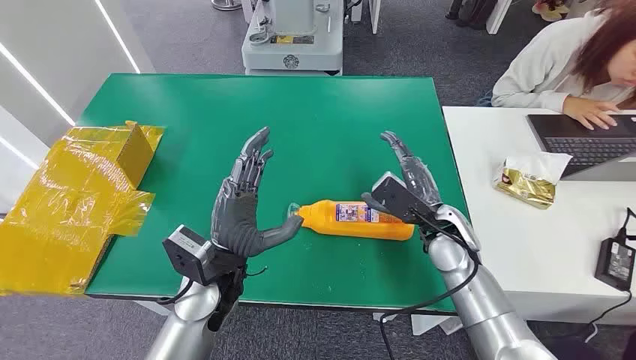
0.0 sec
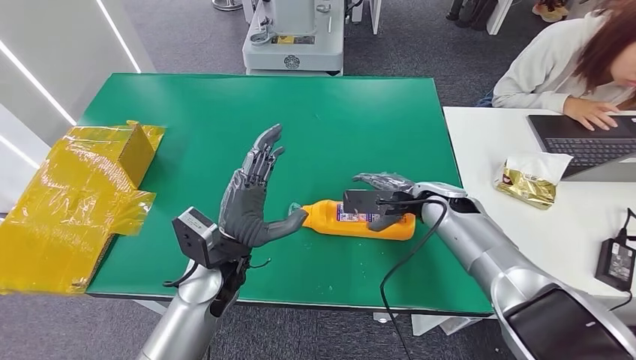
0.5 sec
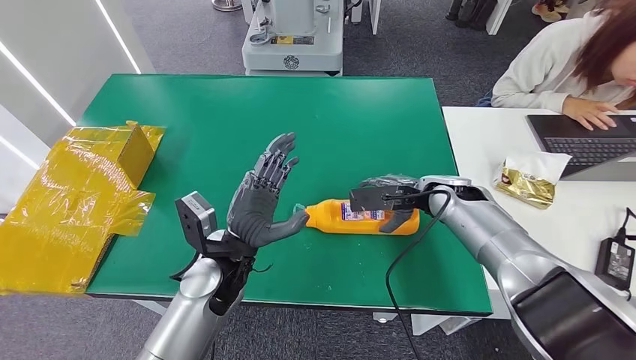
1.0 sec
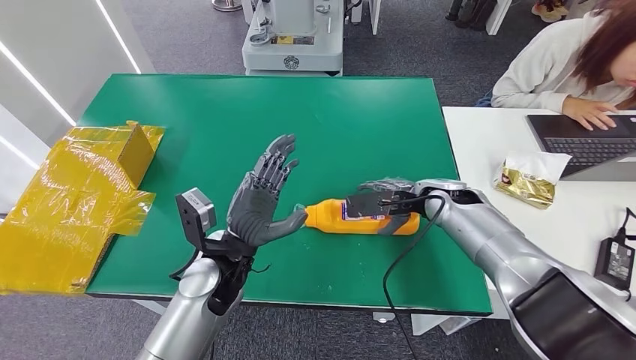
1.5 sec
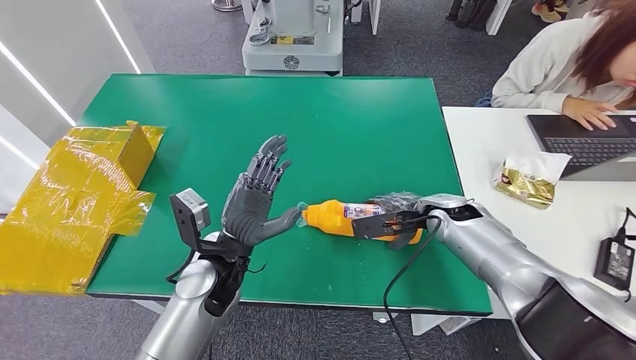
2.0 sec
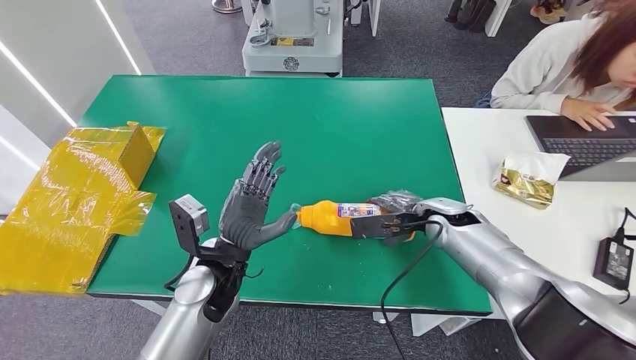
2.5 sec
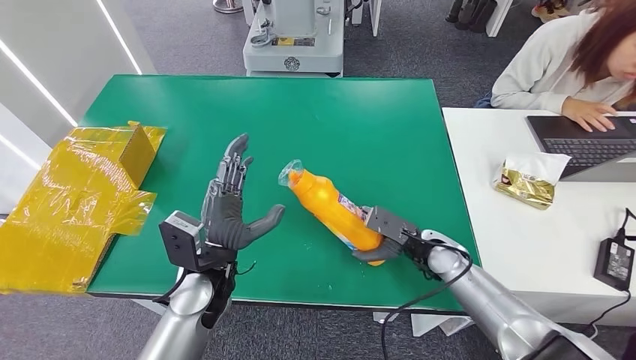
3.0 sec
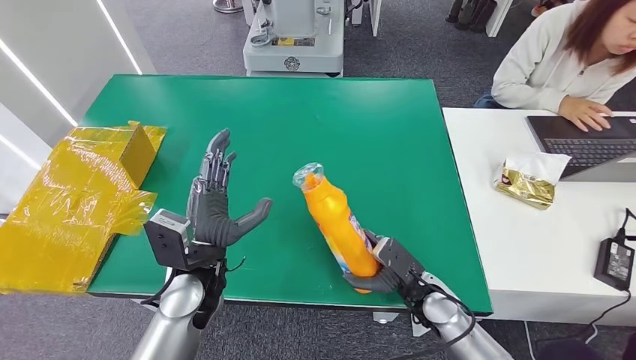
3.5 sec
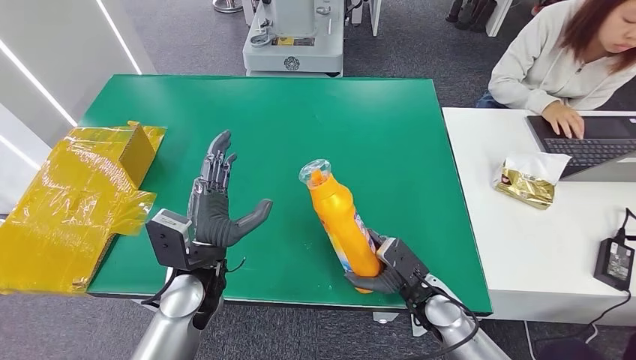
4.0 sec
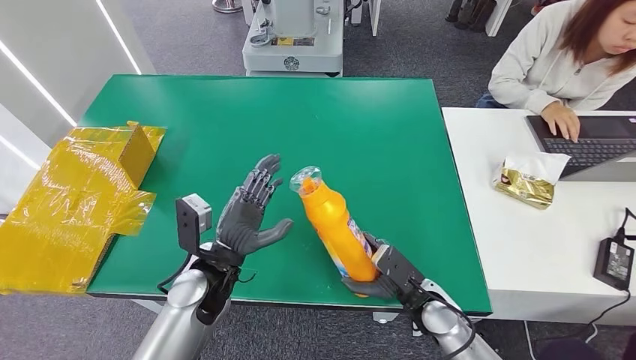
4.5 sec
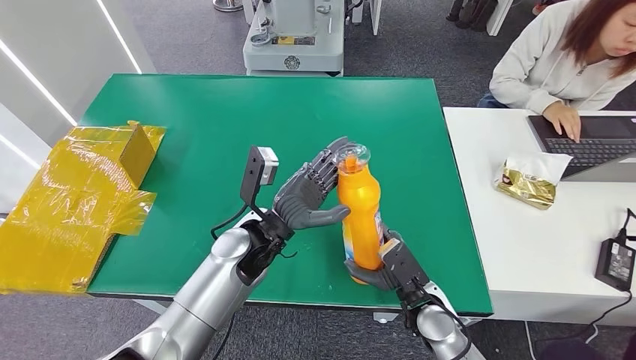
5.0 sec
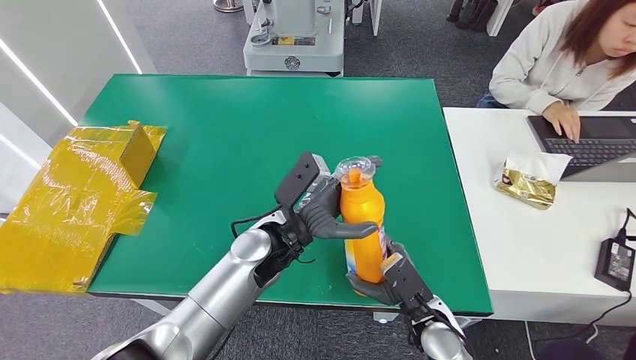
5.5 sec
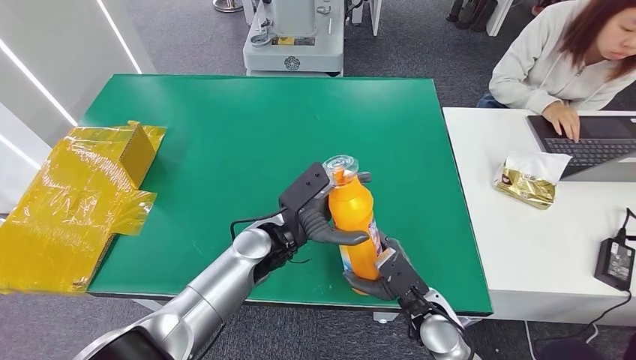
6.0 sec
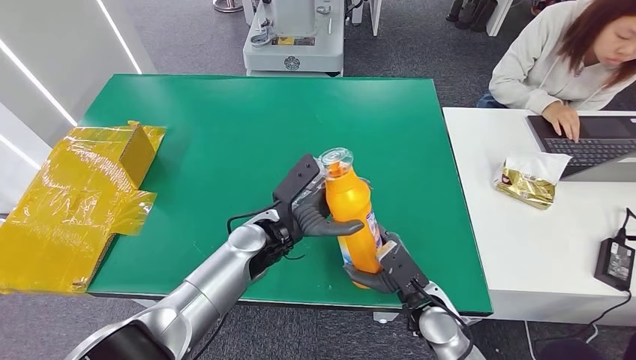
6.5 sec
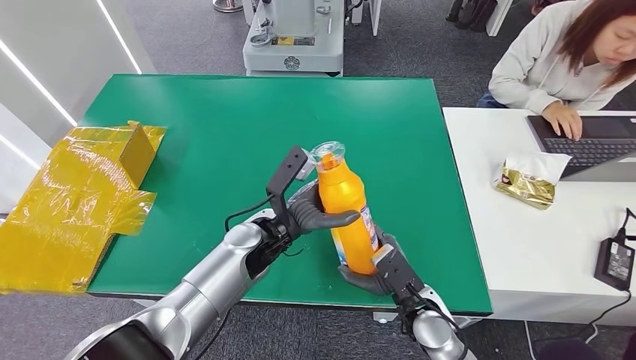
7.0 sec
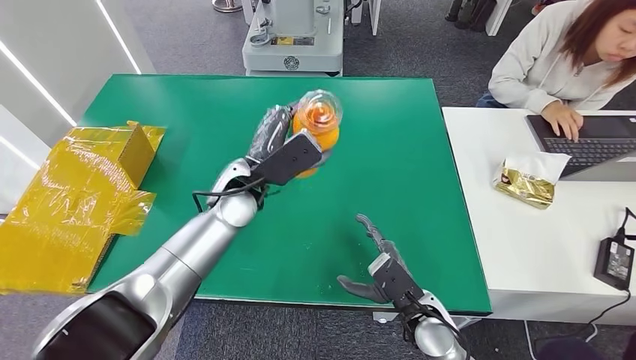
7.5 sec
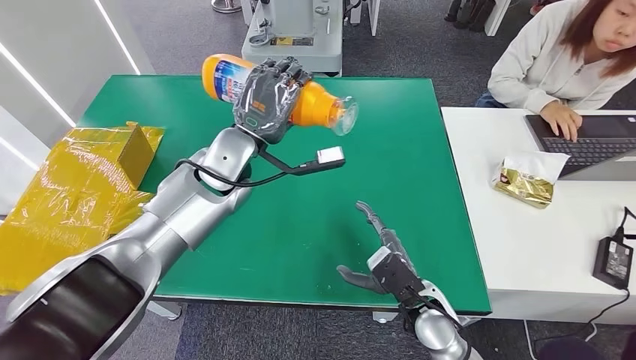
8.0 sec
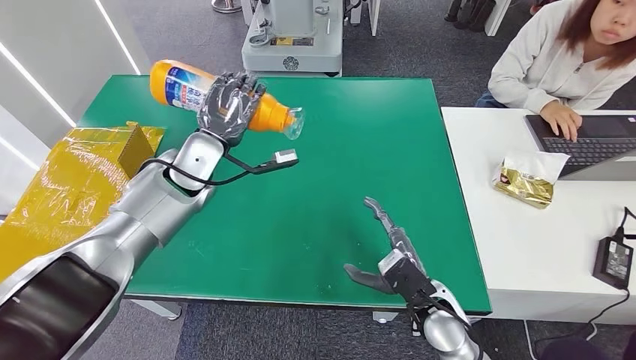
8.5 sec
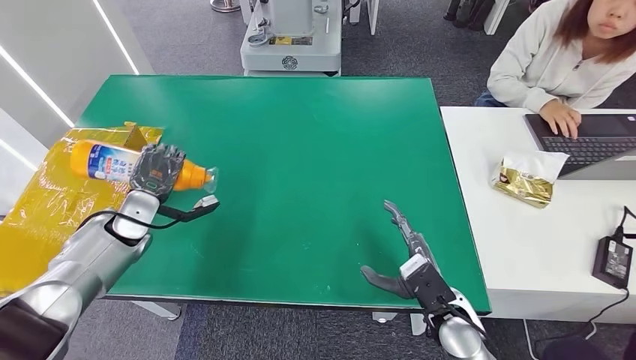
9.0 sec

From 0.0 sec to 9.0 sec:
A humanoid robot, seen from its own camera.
Step, from 0.0 sec to 3.0 sec: Pick up the bottle from the table.
Step, from 3.5 sec to 9.0 sec: Turn the bottle to the front side.
From 2.0 sec to 4.5 sec: The right hand heads backward and downward, covering about 20 cm.
From 4.5 sec to 7.0 sec: The left hand shifts some 10 cm forward and to the right.
